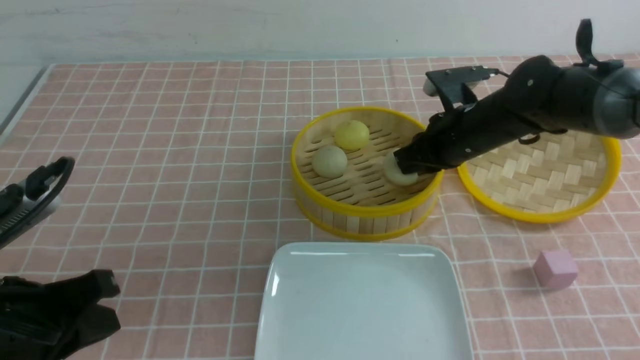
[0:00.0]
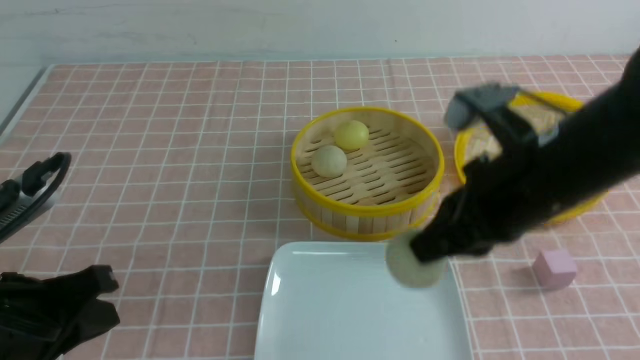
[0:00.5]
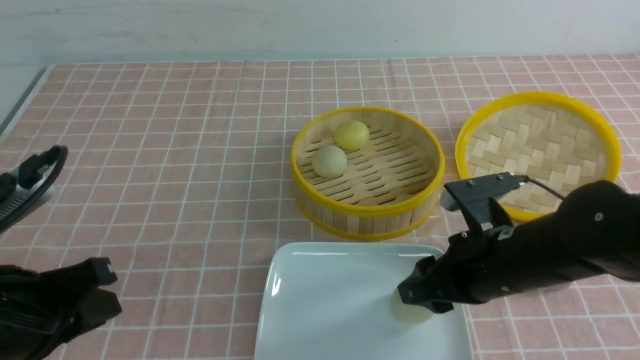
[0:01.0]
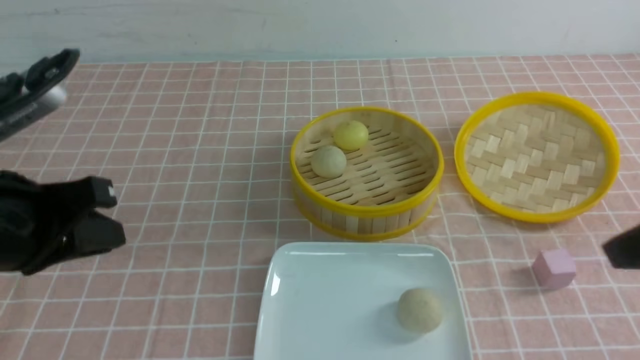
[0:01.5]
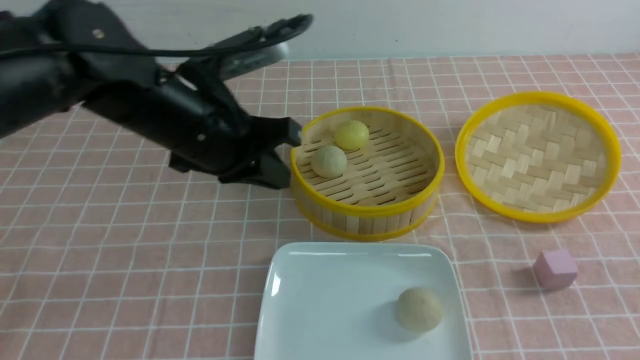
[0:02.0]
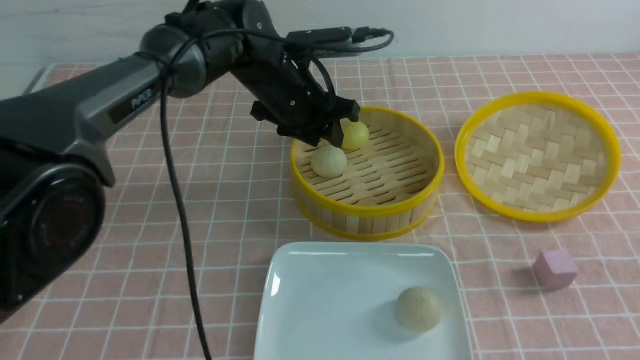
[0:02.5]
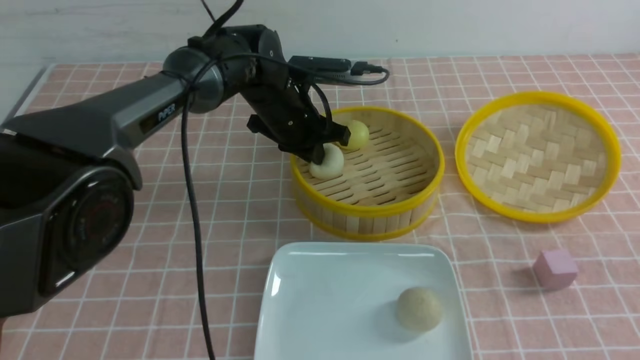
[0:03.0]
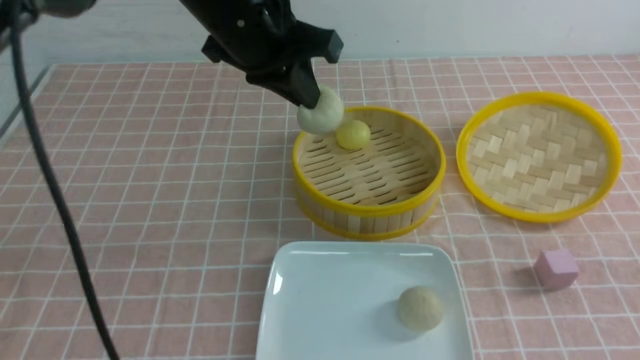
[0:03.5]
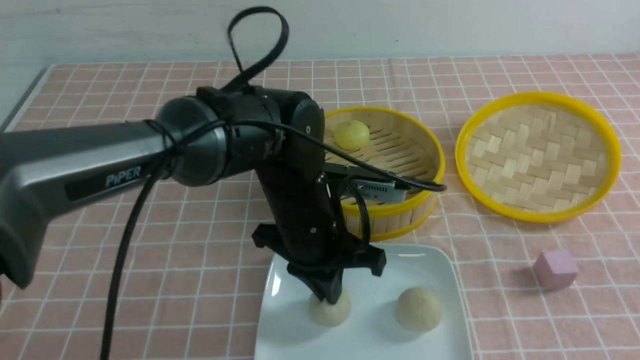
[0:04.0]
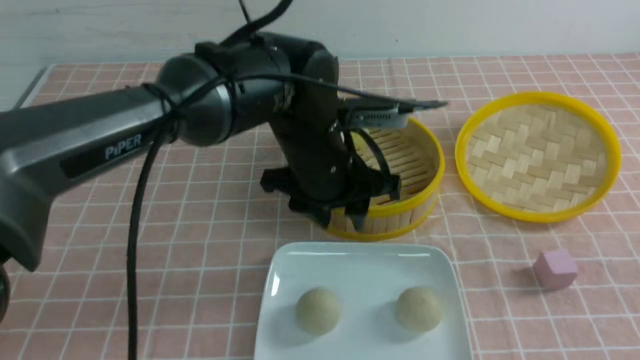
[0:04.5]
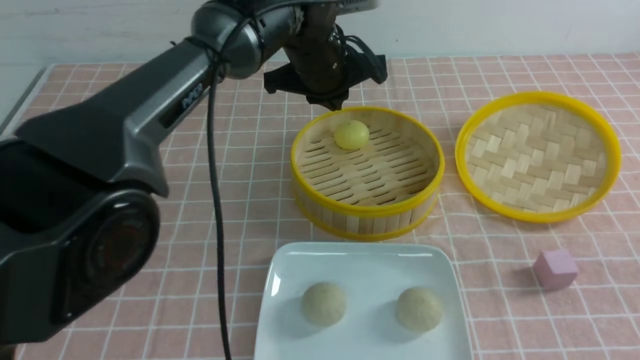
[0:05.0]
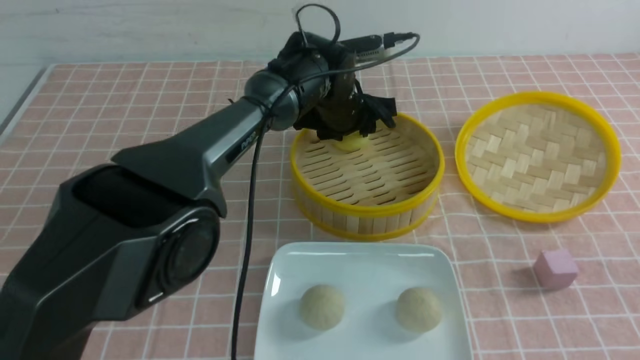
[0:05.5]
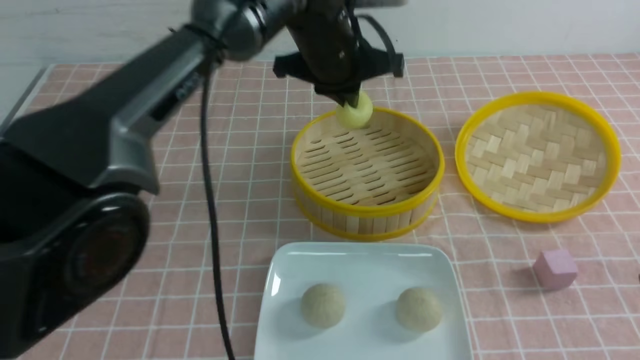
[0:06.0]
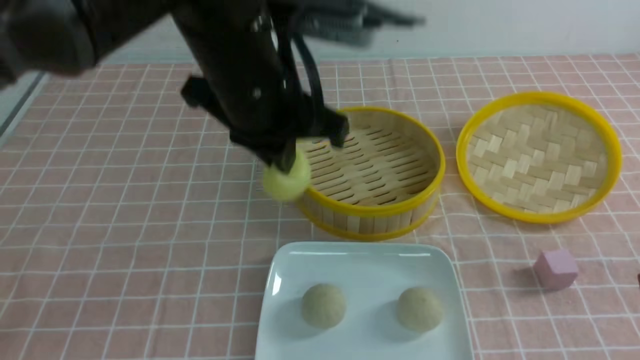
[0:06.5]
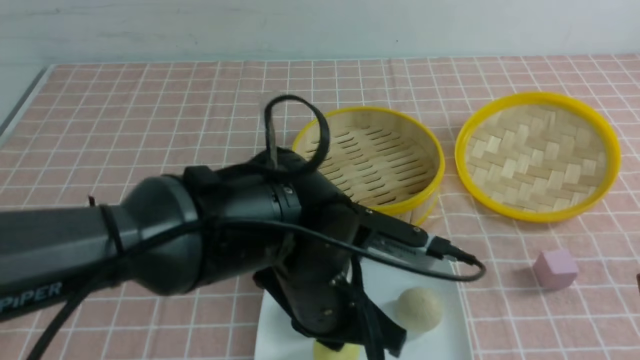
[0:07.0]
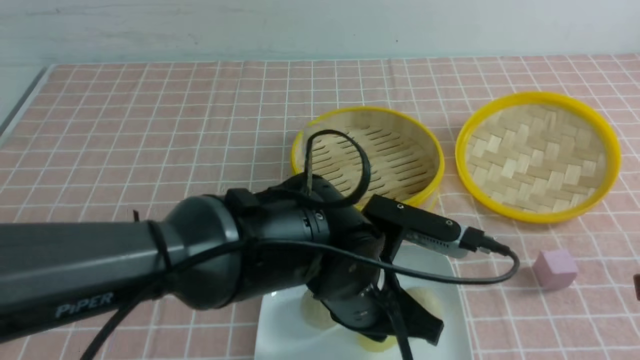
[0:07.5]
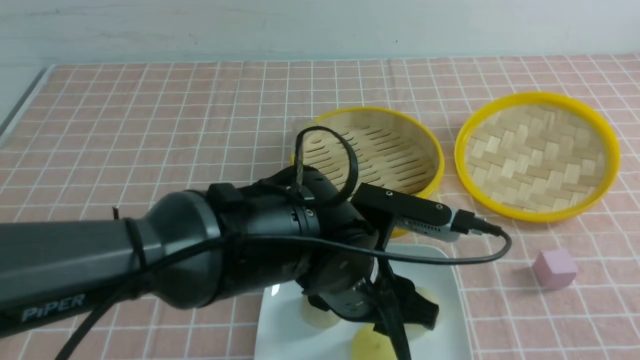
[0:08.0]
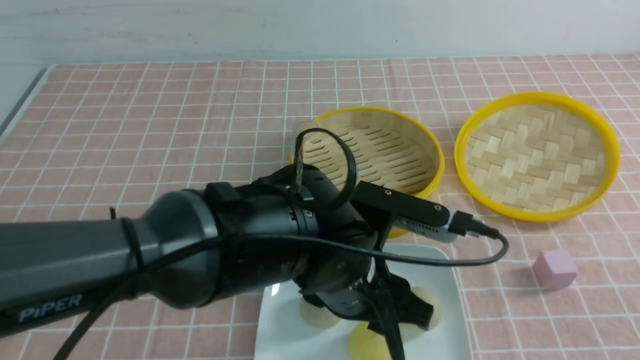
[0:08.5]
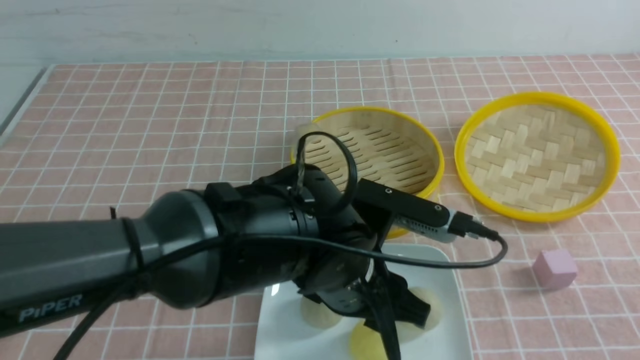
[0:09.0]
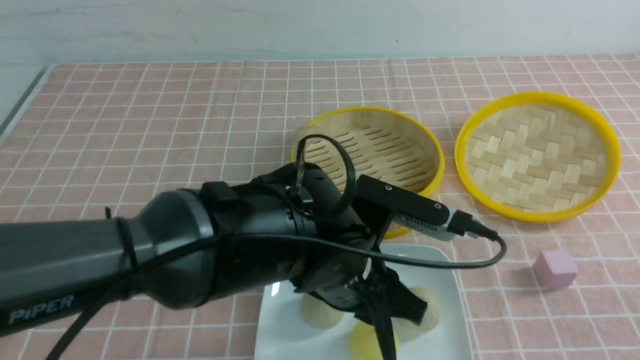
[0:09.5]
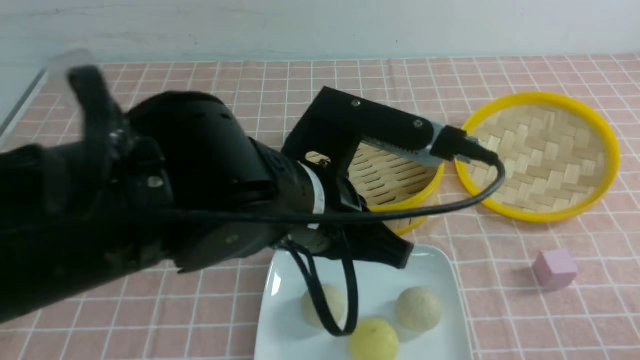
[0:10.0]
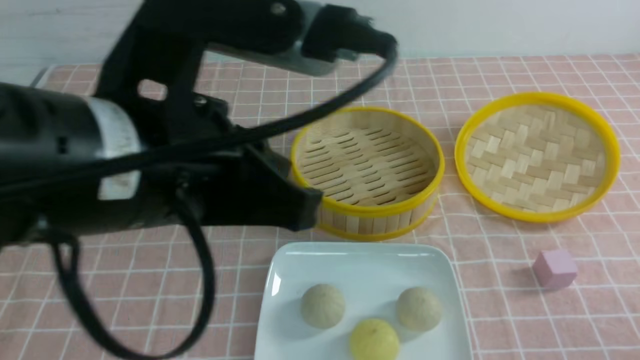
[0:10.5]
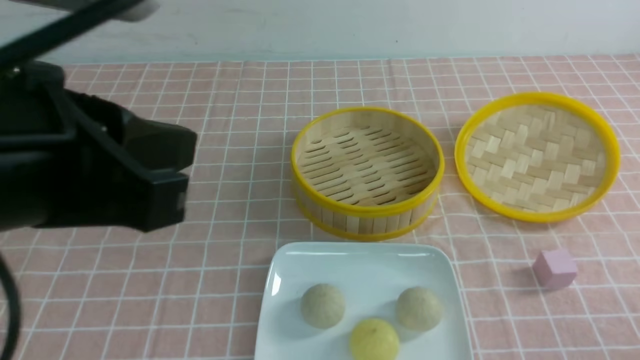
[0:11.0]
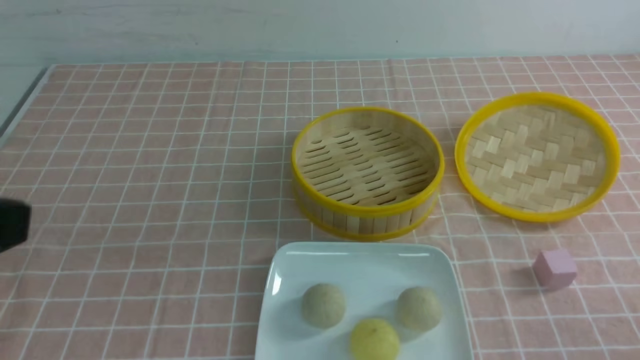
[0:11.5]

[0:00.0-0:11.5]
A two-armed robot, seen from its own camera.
Step, 0:00.5 to 0:01.0: use the right arm to put the steamed stuffed bun into the plate.
Step, 0:01.5 to 0:03.0: use the left arm to grab the steamed stuffed bun that is closest to it.
Step, 0:03.5 to 0:04.0: use the left arm to put the steamed stuffed bun into the plate.
Step, 0:04.5 to 0:05.5: use the left arm to grab the steamed stuffed bun that is closest to it.
Step, 0:06.0 to 0:08.0: use the left arm to put the steamed stuffed bun into the plate.
0:00.0 to 0:02.0: The left gripper moves forward and to the right, some 20 cm. Meanwhile the right gripper is displaced backward and to the right by some 30 cm, and opens, then closes once more.
0:02.0 to 0:04.0: The left gripper heads to the right and downward, covering about 15 cm, moves approximately 15 cm forward and comes back, and opens, then closes once more.
0:04.0 to 0:06.0: The left gripper shifts about 15 cm upward and forward, and opens and closes again.
0:06.0 to 0:07.5: The left gripper moves backward and downward, about 25 cm.
0:07.5 to 0:09.5: The right gripper moves backward and downward, roughly 10 cm. The left gripper opens, then closes once more.
0:09.5 to 0:11.5: The left gripper travels to the left, upward and backward by roughly 30 cm, and closes up. Meanwhile the right gripper heads downward, covering about 5 cm.

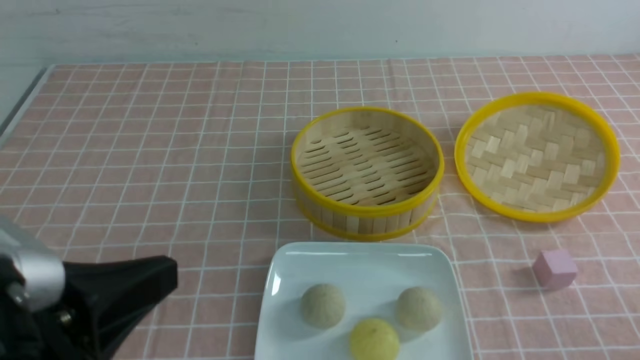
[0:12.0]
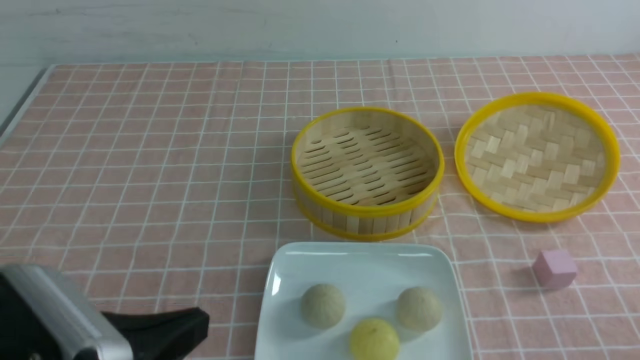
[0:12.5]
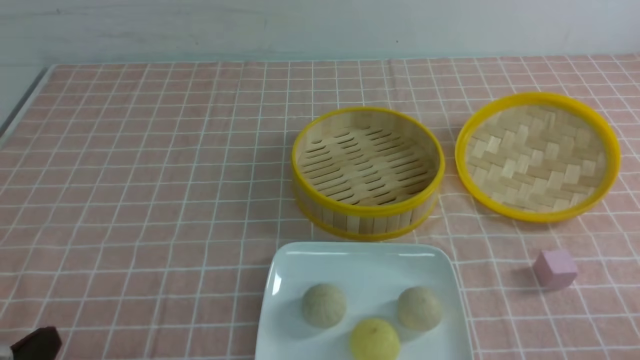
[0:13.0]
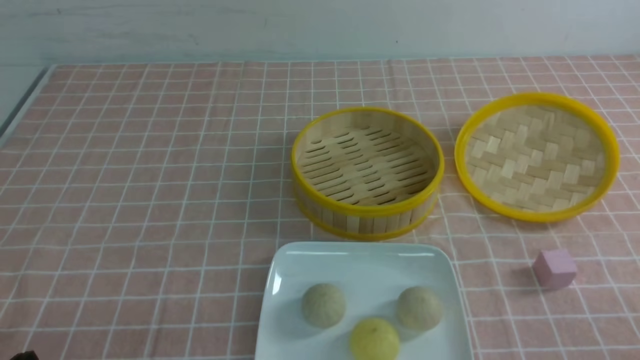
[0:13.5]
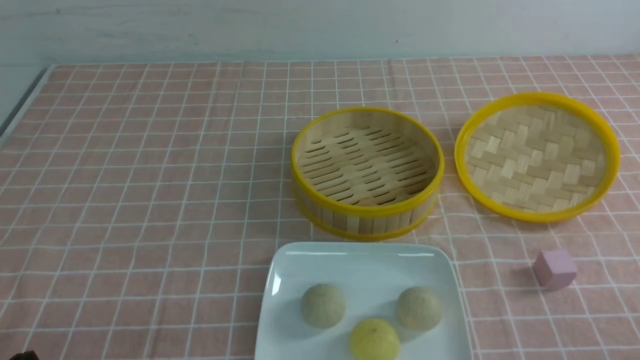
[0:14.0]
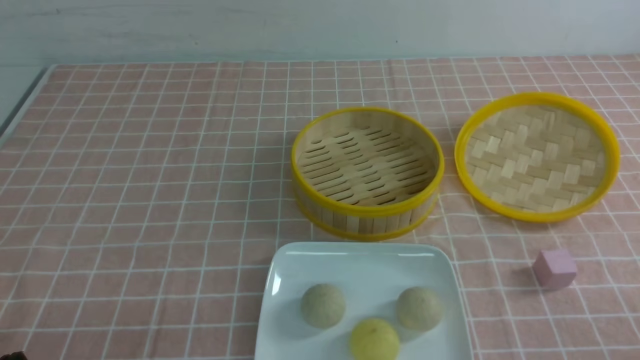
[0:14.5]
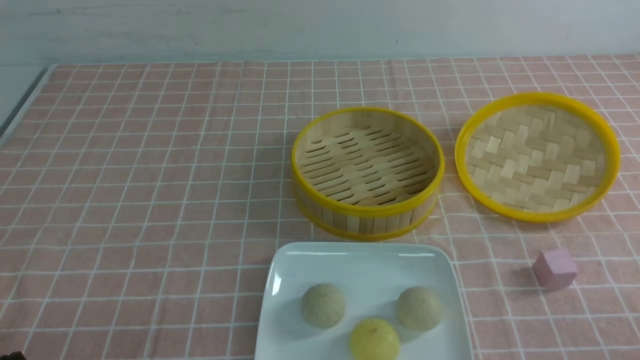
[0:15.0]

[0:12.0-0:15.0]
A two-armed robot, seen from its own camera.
0:12.0 to 0:13.5: The left gripper heads downward and to the left, covering approximately 15 cm.
0:13.5 to 0:15.0: Neither gripper changes place.
